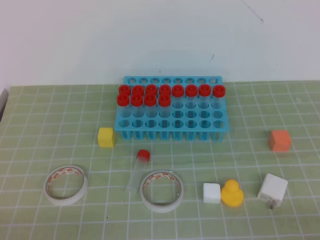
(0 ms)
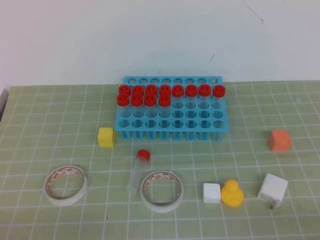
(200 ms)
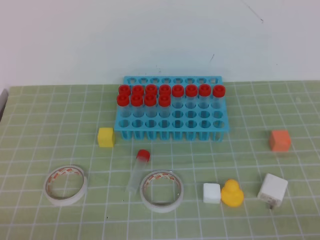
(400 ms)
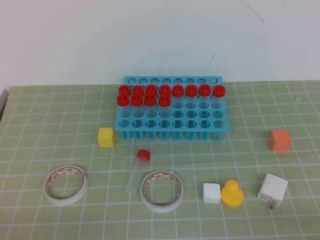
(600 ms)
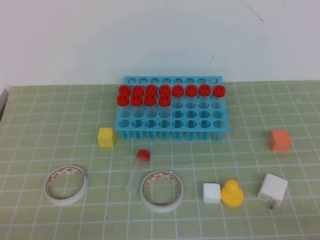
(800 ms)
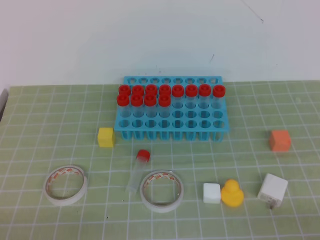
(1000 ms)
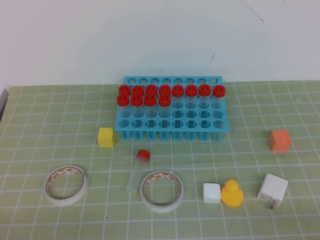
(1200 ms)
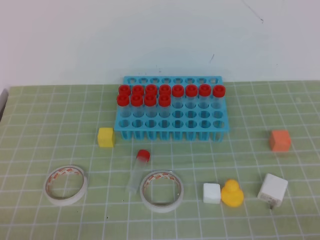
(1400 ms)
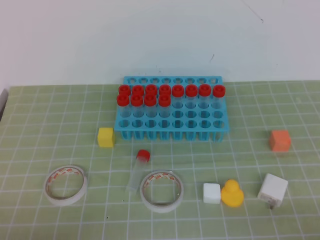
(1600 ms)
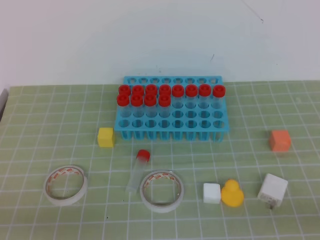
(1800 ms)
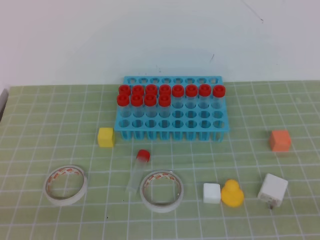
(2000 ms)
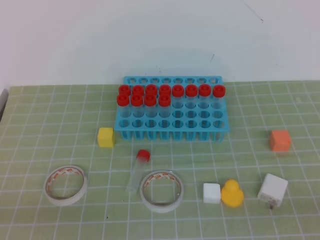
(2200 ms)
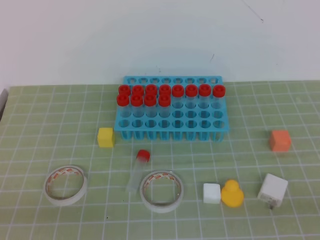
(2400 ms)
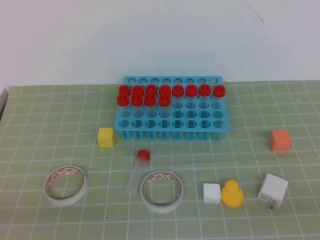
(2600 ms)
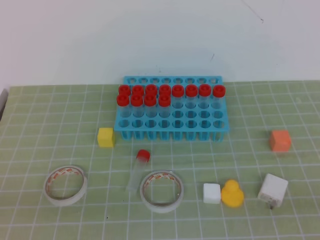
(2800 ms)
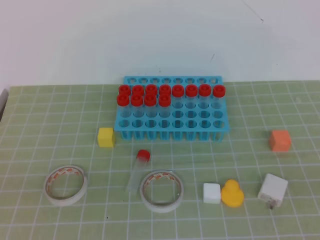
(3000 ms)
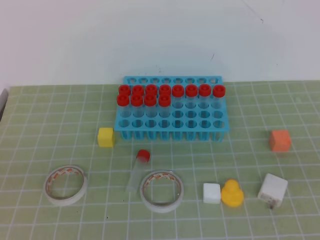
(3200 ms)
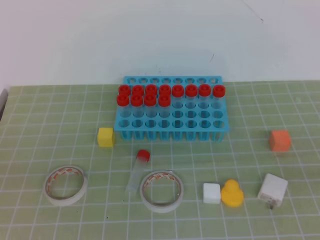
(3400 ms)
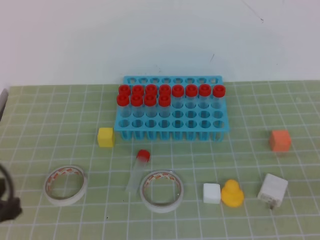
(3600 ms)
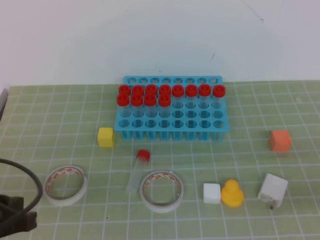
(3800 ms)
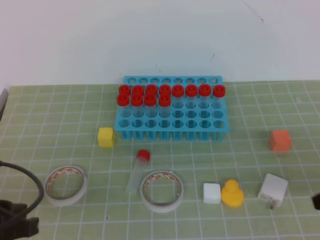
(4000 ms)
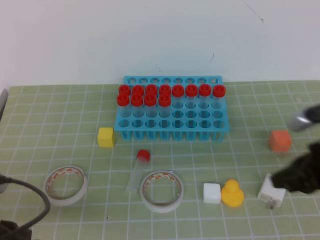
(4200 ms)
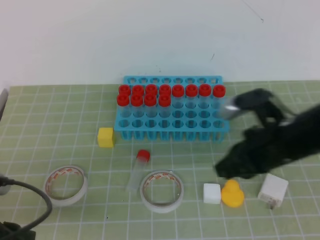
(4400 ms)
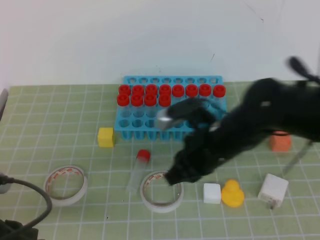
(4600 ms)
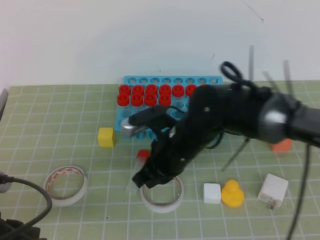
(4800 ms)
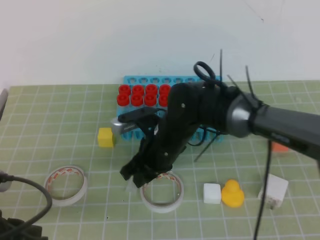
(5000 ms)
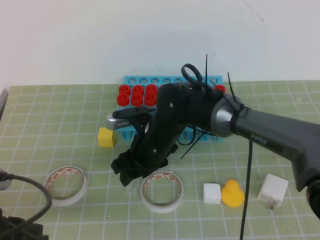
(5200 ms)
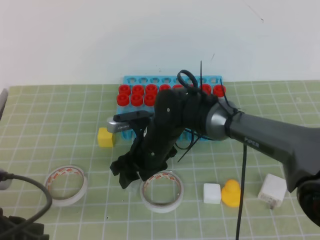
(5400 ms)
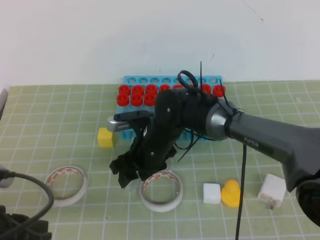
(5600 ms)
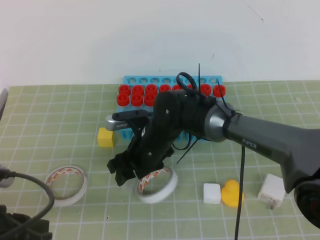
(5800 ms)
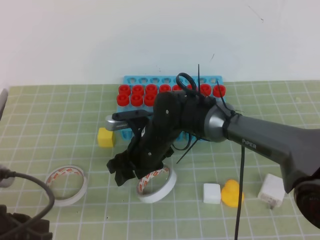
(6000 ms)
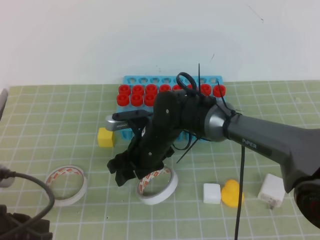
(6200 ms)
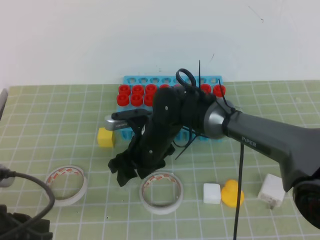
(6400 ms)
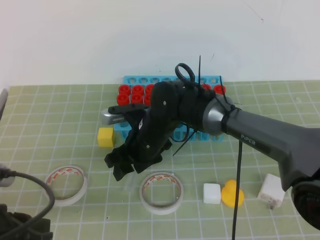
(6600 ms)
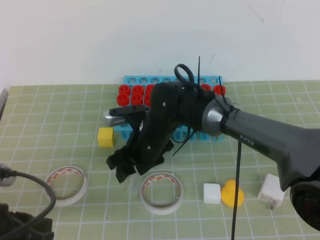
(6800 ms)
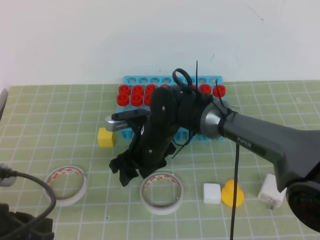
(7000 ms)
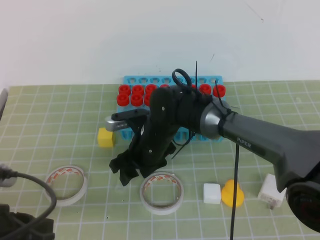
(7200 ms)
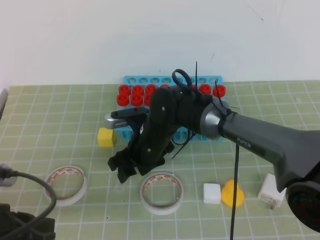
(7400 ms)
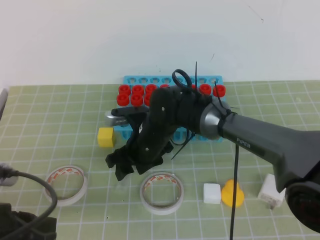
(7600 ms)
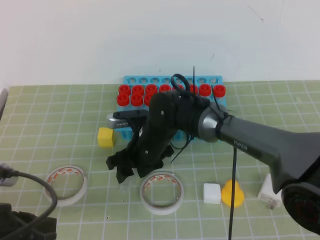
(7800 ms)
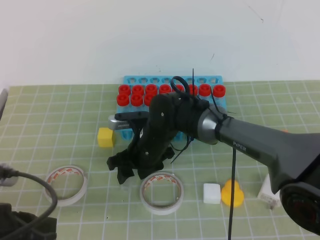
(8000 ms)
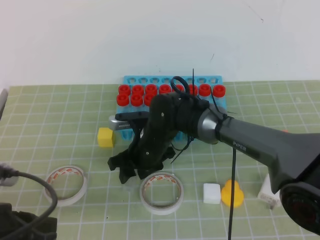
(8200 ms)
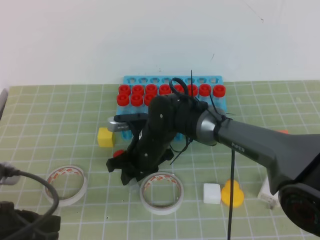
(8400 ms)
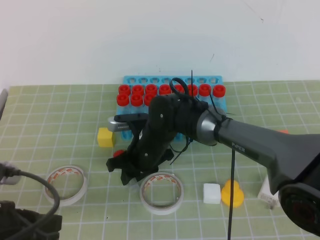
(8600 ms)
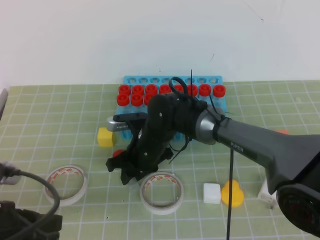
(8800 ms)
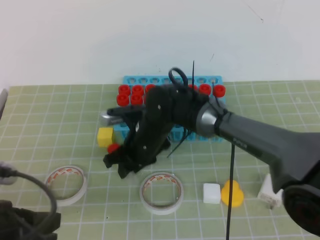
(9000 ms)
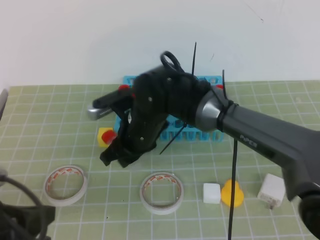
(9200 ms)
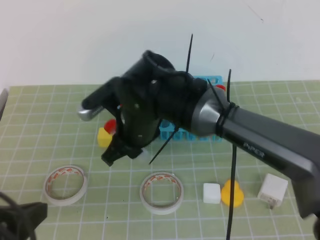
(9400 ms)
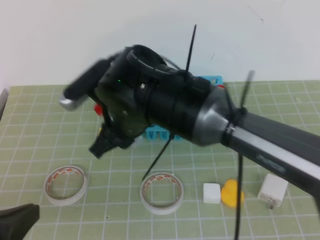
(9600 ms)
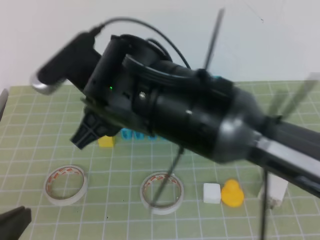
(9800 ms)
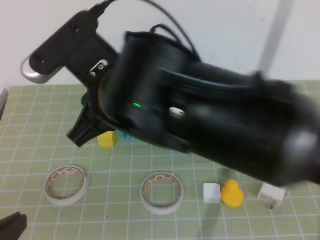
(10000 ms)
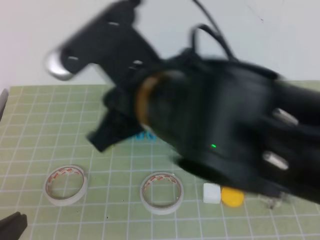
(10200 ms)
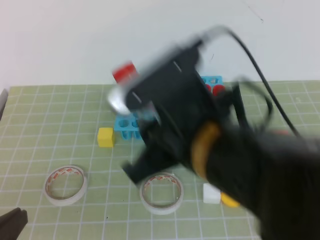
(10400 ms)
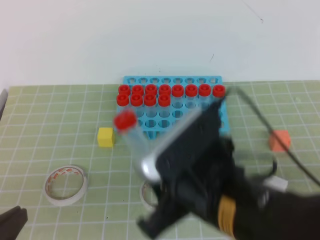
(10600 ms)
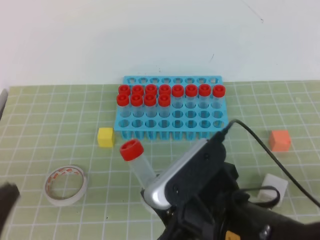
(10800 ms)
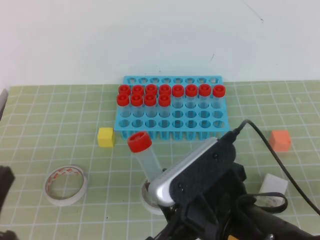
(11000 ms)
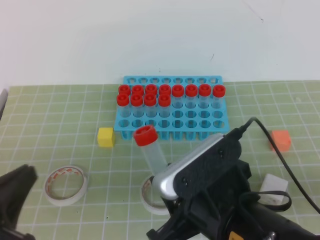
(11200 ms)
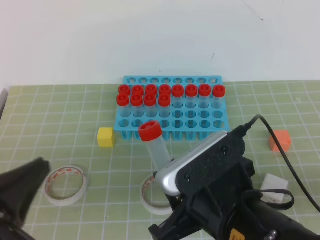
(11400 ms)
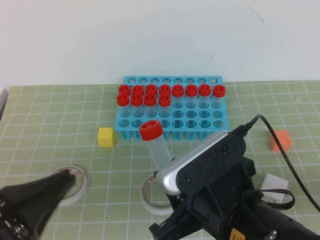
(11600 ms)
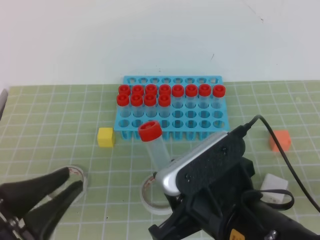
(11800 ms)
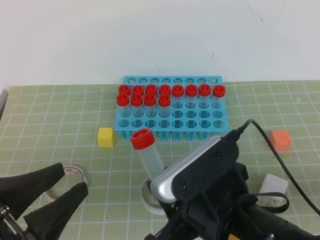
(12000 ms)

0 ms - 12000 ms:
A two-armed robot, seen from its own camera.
3000 ms - 4400 ms: The right gripper heads forward and to the left, covering about 30 cm. The left gripper travels forward and downward by roughly 10 cm.
4400 ms - 6000 ms: The right gripper travels to the left, downward and forward by some 25 cm, and opens.
6000 ms - 7600 ms: Both grippers stay put.
7600 ms - 9000 ms: The right gripper closes up.
9000 ms - 10400 ms: The left gripper moves backward, some 10 cm; the right gripper heads backward and upward, covering some 25 cm.
10400 ms - 12000 ms: The right gripper shifts roughly 10 cm downward and backward. The left gripper opens its fingers.

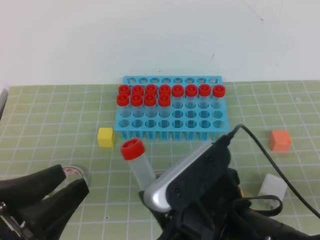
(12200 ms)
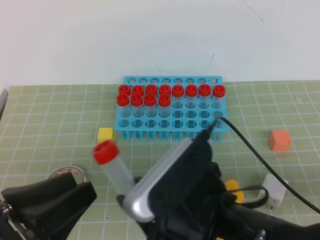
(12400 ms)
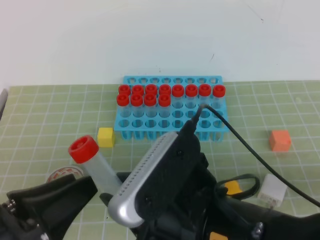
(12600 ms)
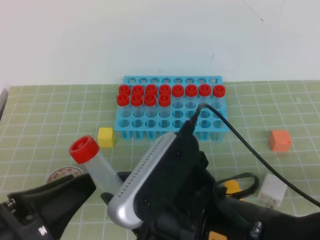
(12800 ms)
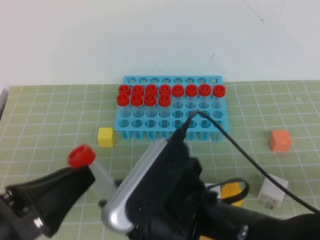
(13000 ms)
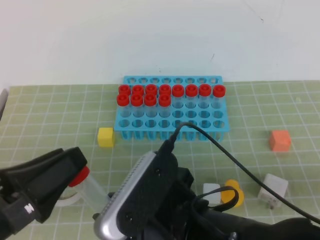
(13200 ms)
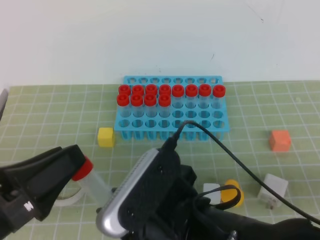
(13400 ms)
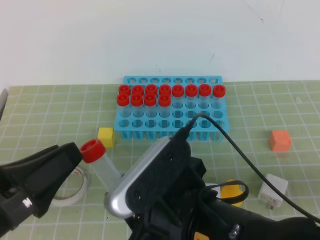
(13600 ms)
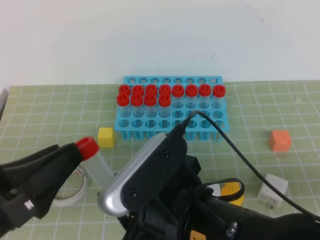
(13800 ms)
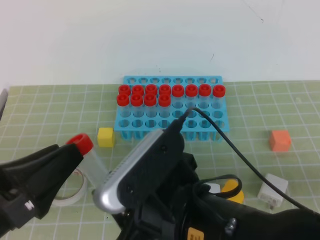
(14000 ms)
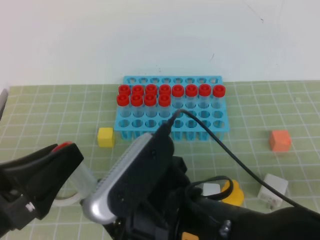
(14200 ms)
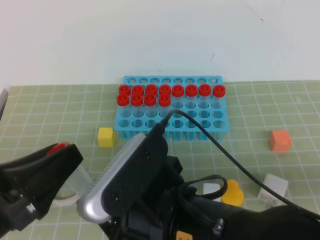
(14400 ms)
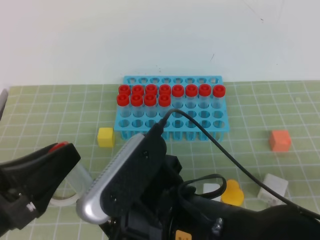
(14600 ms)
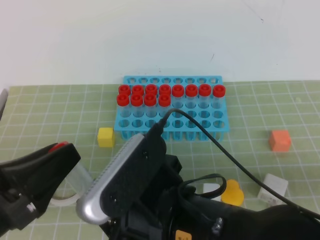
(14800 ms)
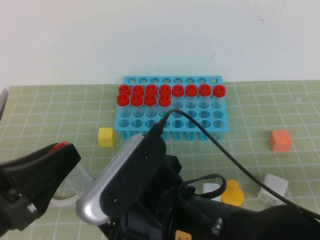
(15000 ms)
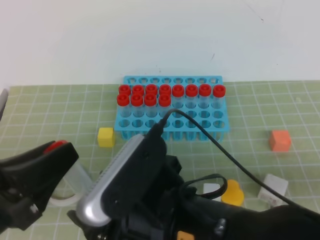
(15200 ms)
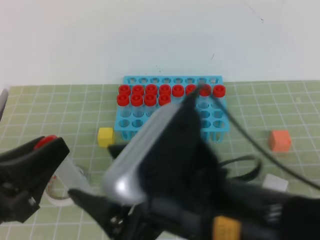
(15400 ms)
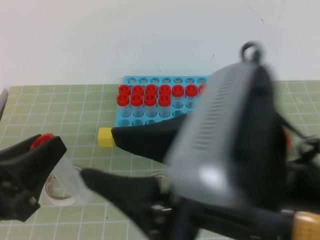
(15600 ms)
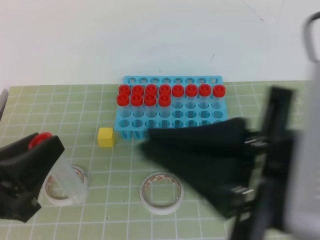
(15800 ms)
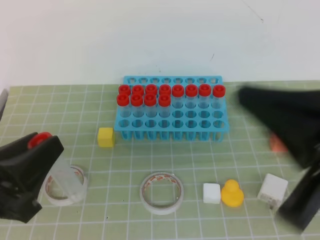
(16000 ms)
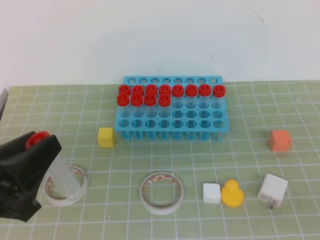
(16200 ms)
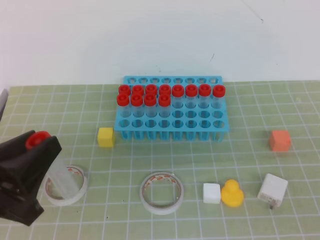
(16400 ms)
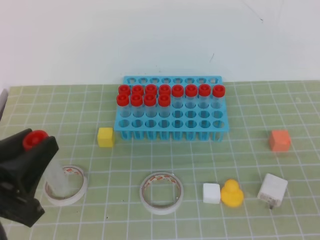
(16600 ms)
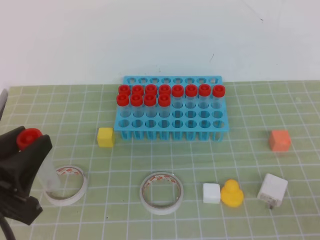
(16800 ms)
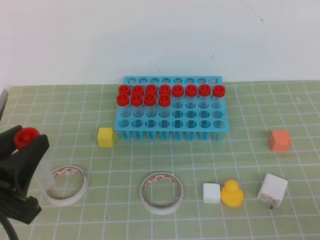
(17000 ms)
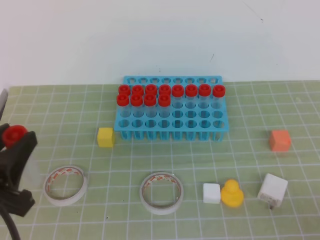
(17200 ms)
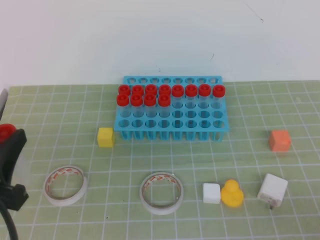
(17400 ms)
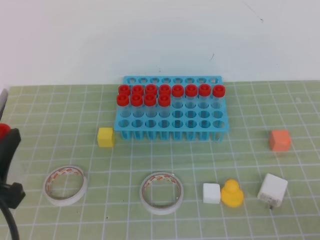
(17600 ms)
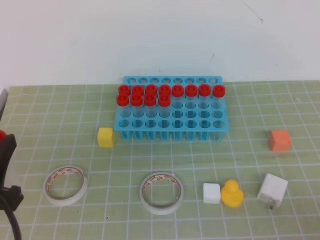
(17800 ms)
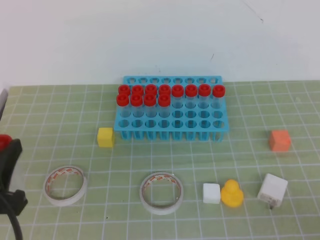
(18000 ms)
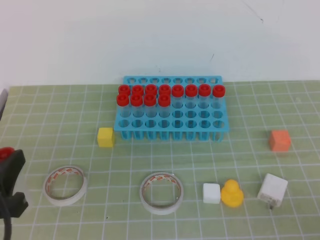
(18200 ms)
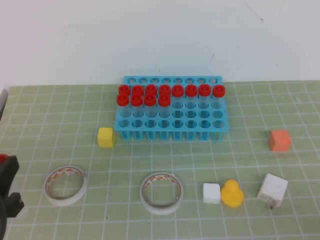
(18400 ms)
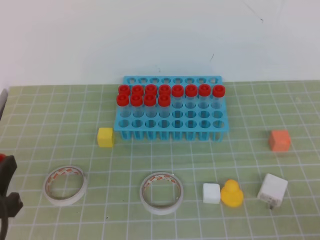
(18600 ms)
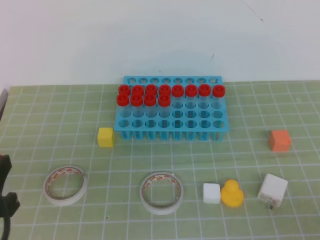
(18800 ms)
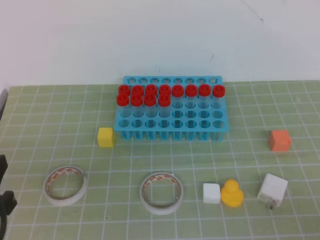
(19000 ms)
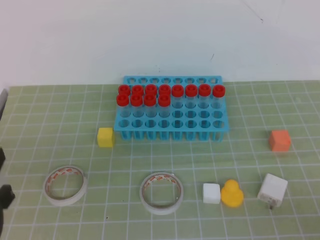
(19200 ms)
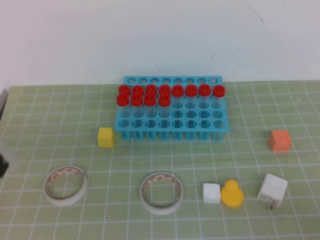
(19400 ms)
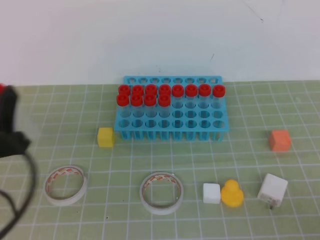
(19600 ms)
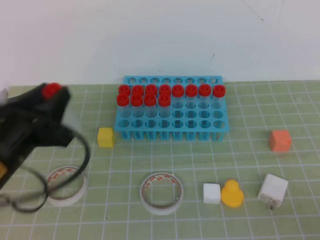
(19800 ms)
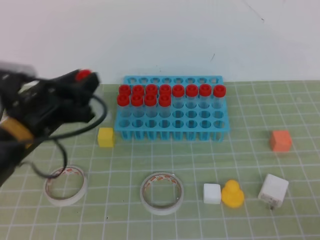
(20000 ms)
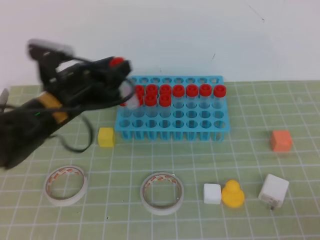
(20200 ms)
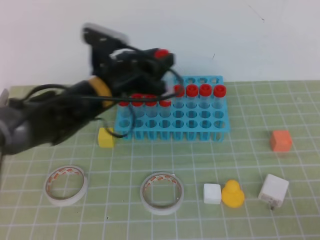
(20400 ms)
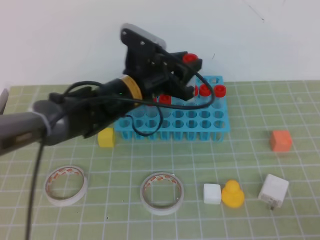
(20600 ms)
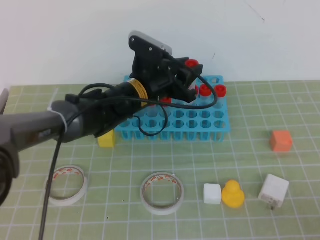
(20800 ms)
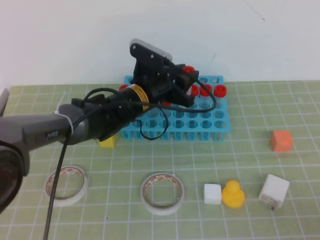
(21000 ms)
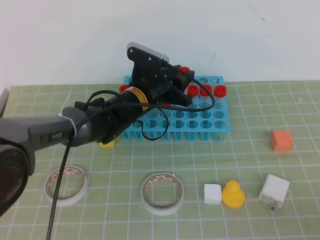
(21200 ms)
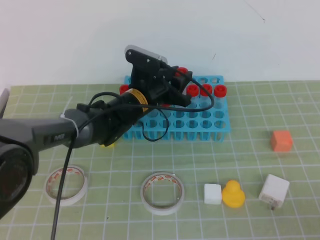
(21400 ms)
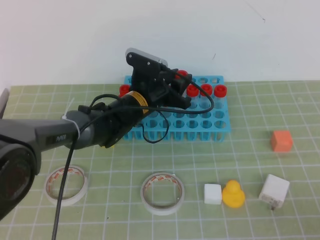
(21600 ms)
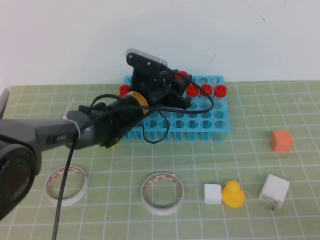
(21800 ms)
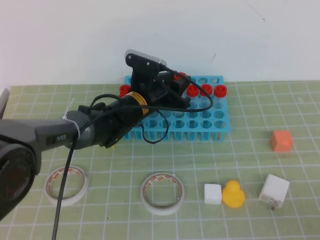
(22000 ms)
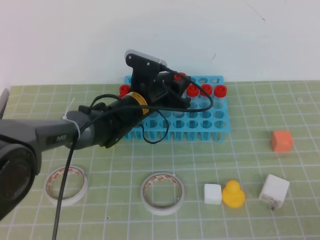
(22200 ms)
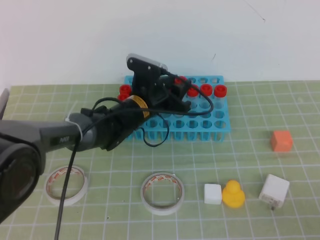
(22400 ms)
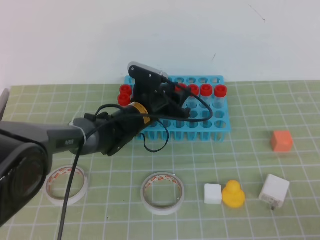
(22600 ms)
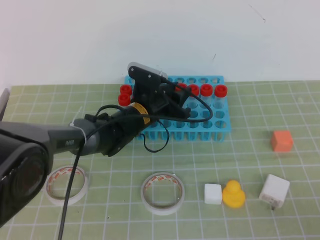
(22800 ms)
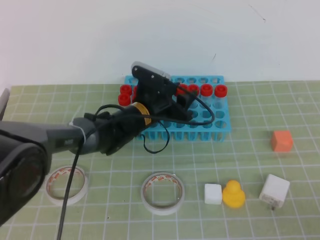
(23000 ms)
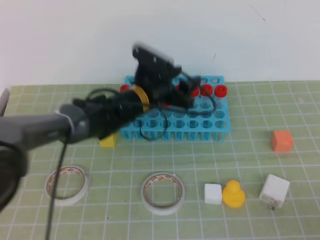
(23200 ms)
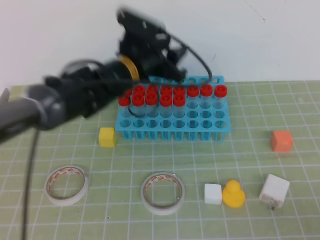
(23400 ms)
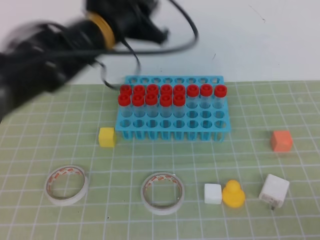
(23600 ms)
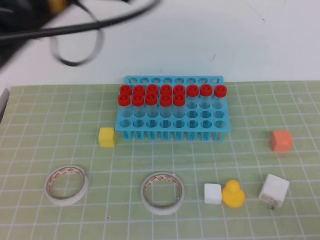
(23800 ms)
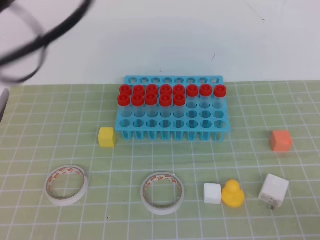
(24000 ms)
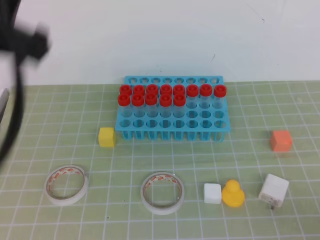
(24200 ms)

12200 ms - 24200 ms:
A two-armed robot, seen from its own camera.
13800 ms - 15200 ms: The right gripper opens.
15200 ms - 16600 ms: The right gripper shifts some 25 cm to the right, and closes its fingers.
18200 ms - 19800 ms: The left gripper heads forward, covering roughly 10 cm.
19800 ms - 21200 ms: The left gripper travels forward and to the right by some 25 cm.
21200 ms - 22600 ms: The grippers move only a little.
22600 ms - 24200 ms: The left gripper shifts roughly 40 cm upward, backward and to the left, and closes.
